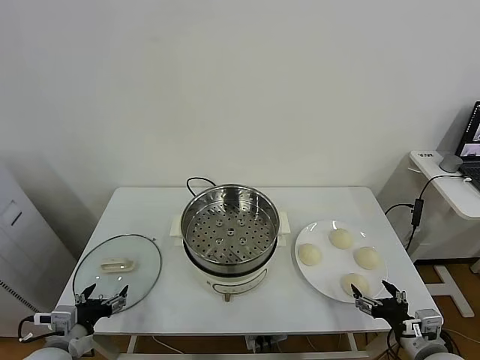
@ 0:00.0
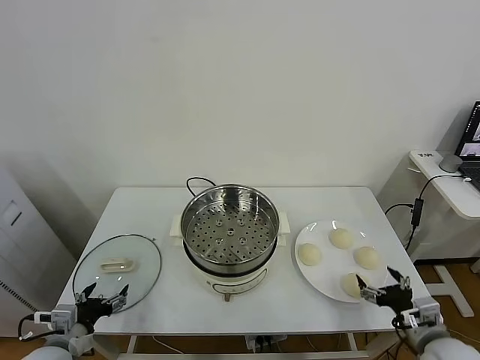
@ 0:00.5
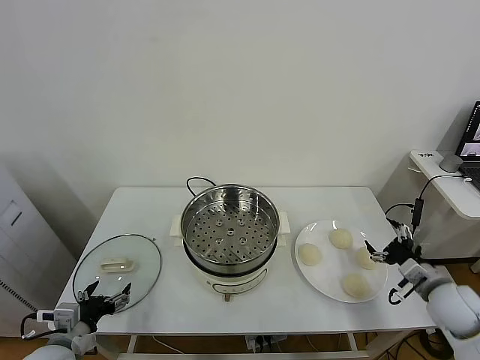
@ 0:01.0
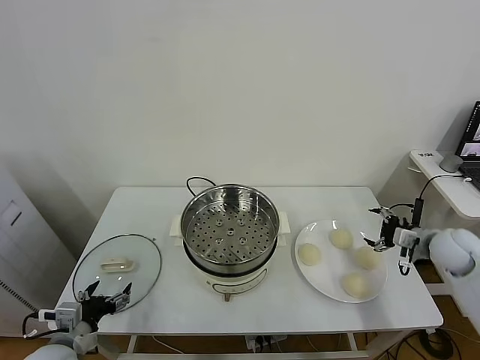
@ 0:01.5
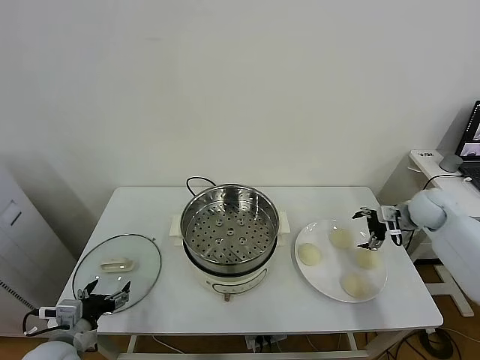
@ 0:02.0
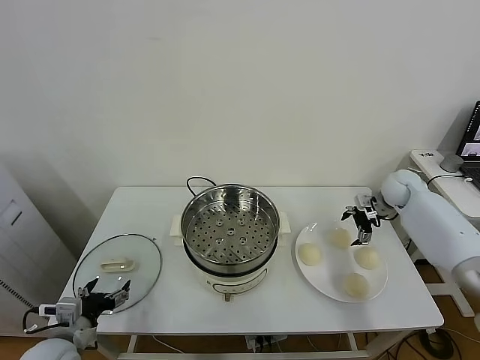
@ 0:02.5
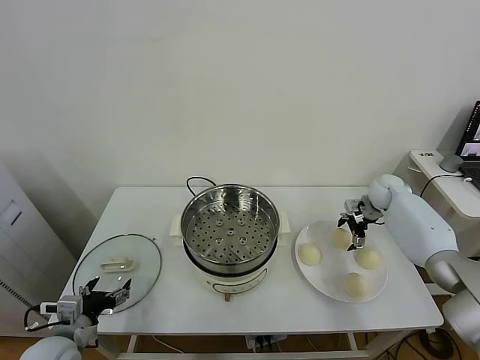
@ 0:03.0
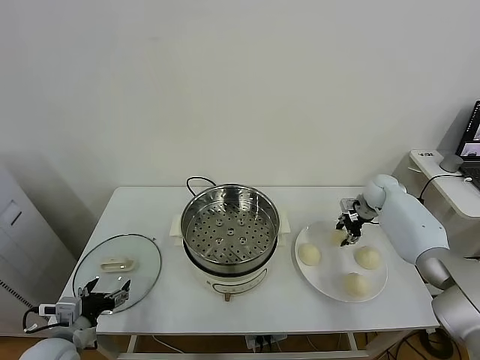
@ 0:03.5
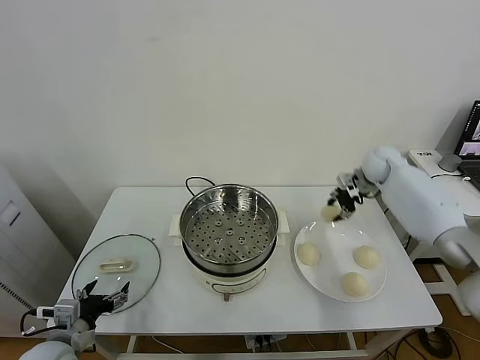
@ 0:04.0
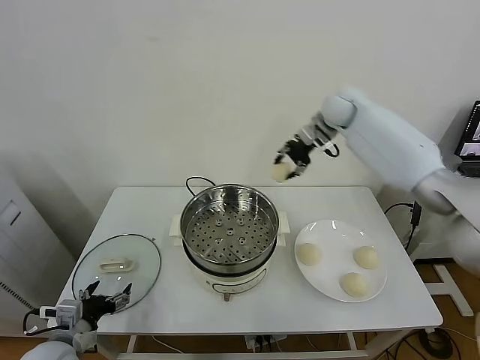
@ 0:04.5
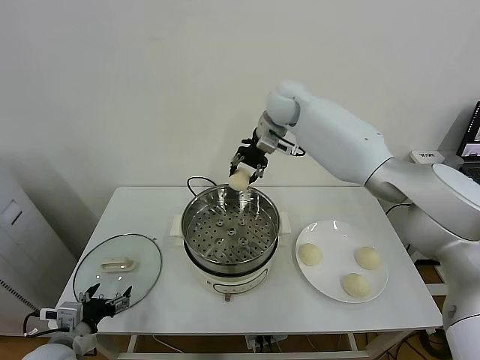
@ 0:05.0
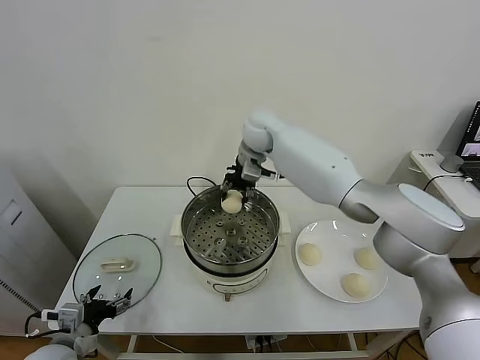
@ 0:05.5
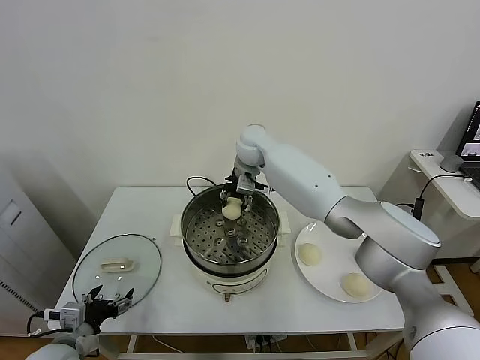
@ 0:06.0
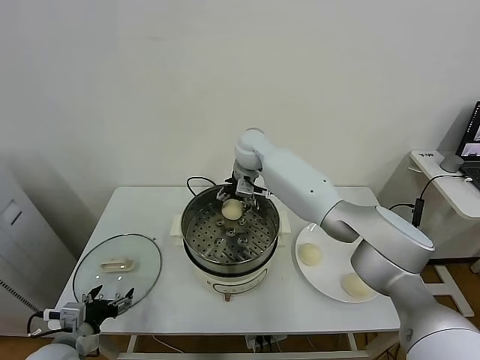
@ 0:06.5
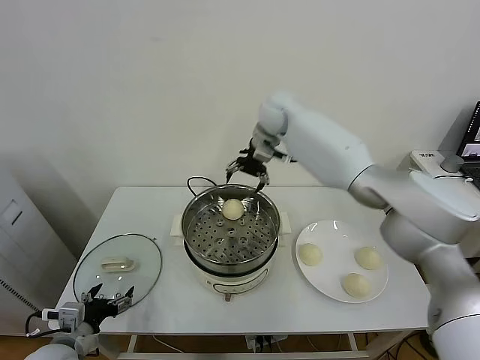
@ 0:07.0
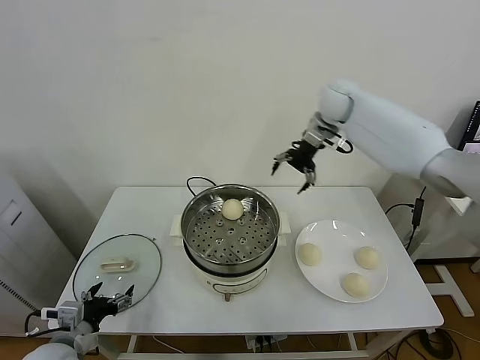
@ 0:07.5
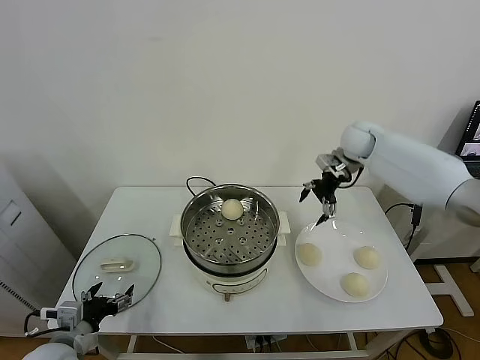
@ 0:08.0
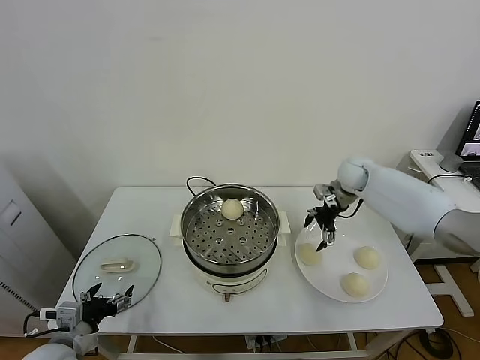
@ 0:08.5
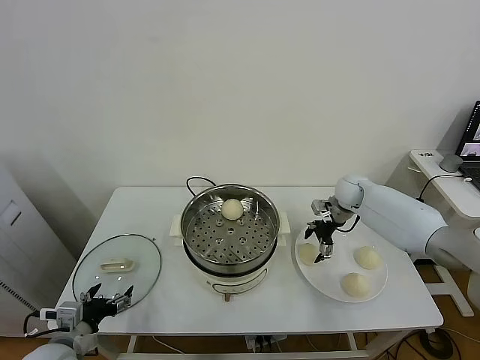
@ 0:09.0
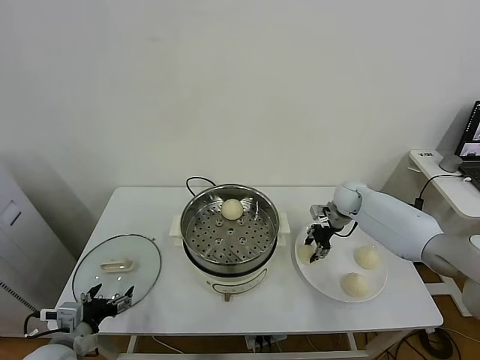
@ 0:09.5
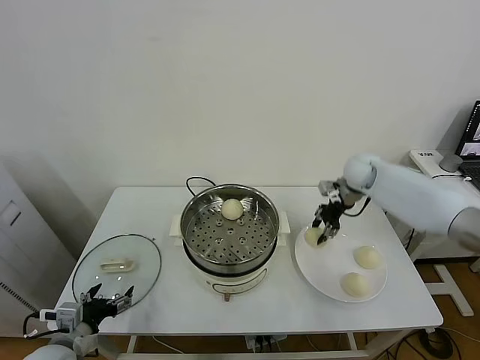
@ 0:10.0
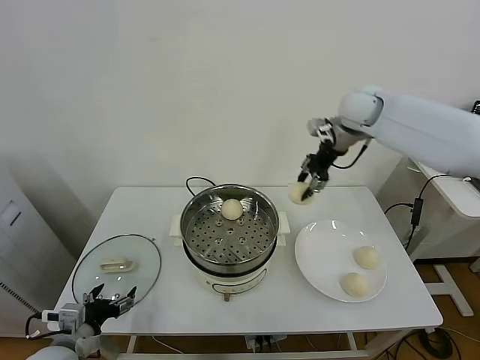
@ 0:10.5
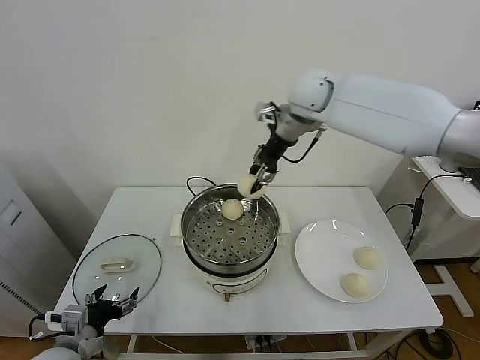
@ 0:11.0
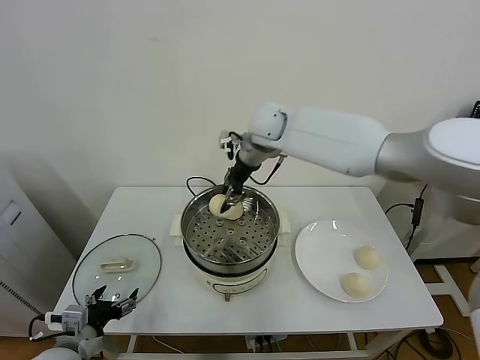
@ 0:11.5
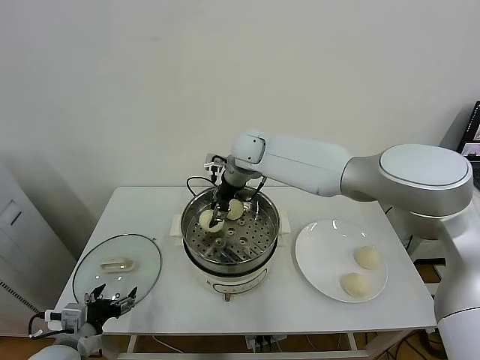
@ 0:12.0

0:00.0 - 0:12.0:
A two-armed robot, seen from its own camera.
Task of the whole recording: take steamed baozi put them in steamer.
Step, 0:00.0 - 0:03.0: Grasp the baozi in the plate with right gripper.
Step, 0:03.5 - 0:06.5: Place the baozi on the steamer with right gripper.
Step, 0:07.0 - 0:09.5: Grasp the baozi in the plate with right gripper.
0:02.0 - 0:04.0: The right gripper heads forward, to the left and upward, covering some 15 cm, and closes its fingers.
0:04.0 - 0:06.0: The right gripper goes roughly 30 cm to the left.
0:06.0 - 0:08.0: The right gripper moves to the right, some 25 cm, and opens up.
0:08.0 - 0:10.0: The right gripper goes downward and returns, roughly 15 cm each way, and closes its fingers.
0:10.0 - 0:12.0: The right gripper is displaced to the left by some 30 cm.

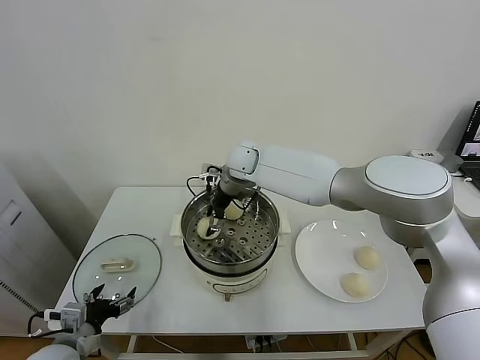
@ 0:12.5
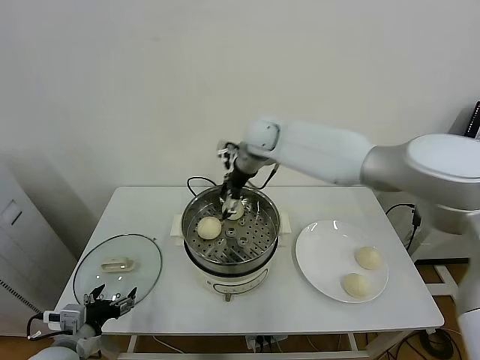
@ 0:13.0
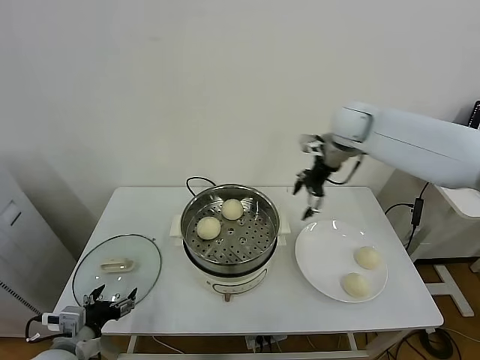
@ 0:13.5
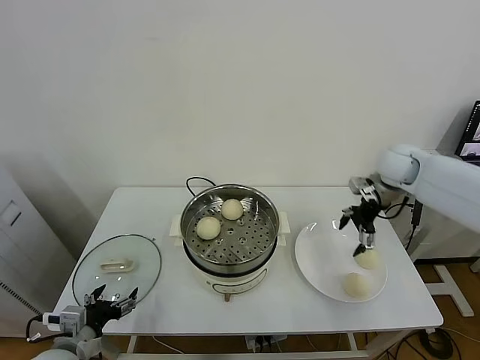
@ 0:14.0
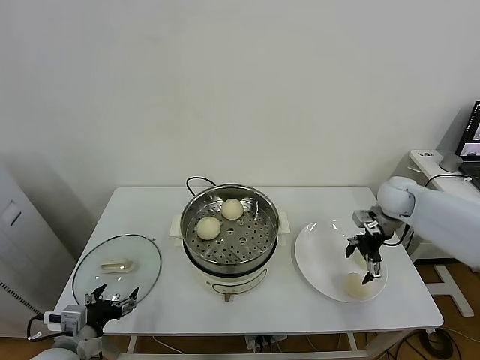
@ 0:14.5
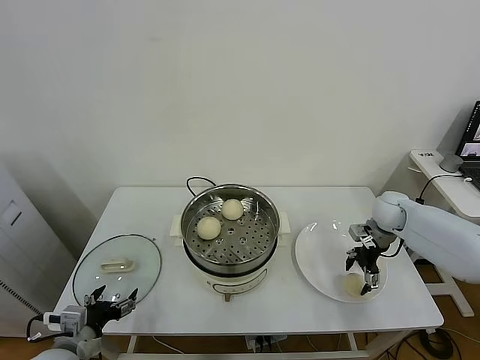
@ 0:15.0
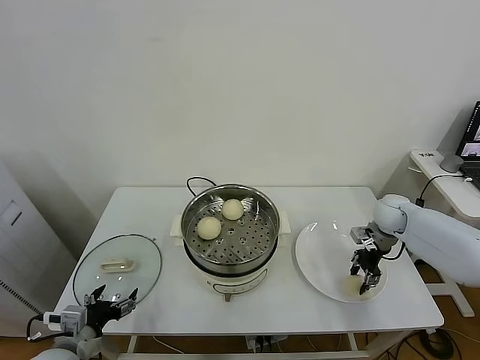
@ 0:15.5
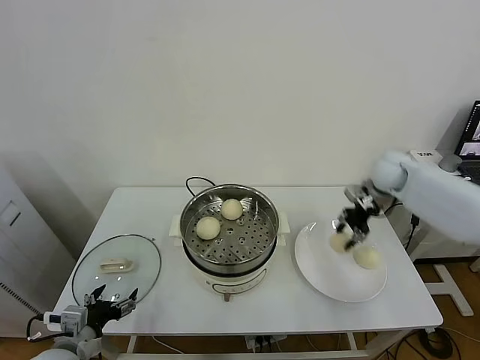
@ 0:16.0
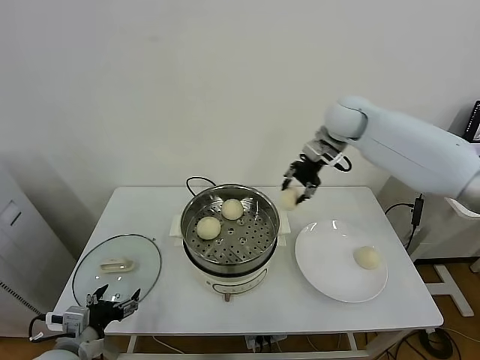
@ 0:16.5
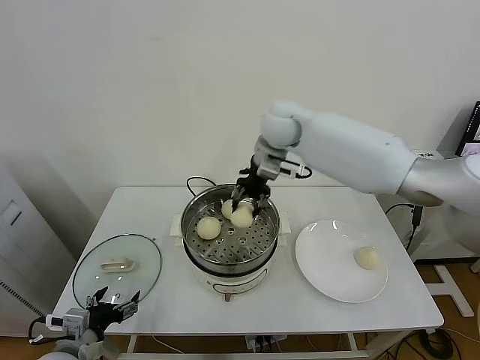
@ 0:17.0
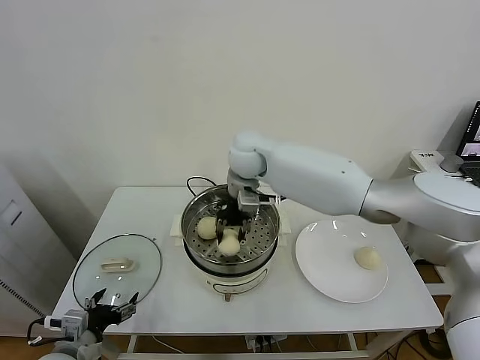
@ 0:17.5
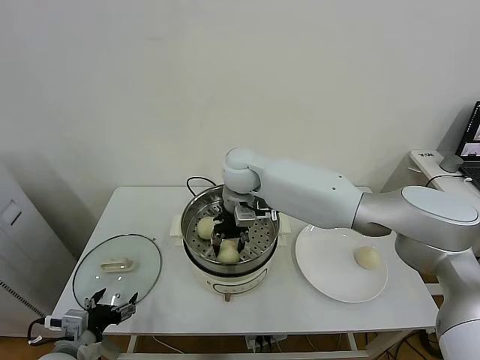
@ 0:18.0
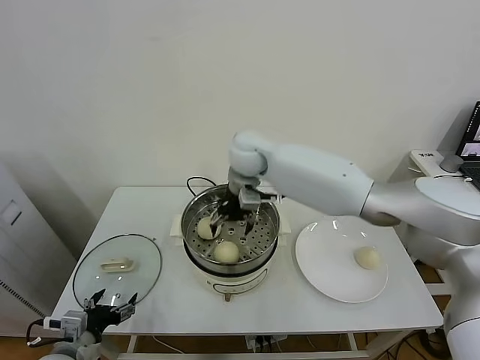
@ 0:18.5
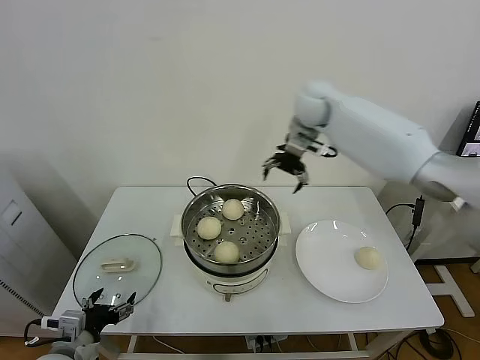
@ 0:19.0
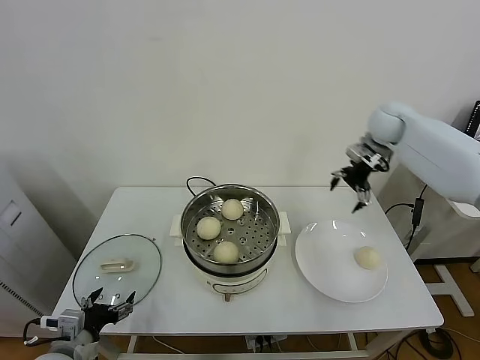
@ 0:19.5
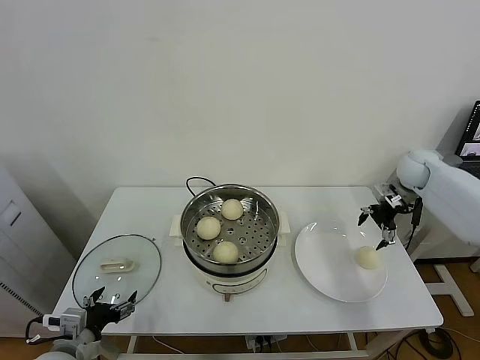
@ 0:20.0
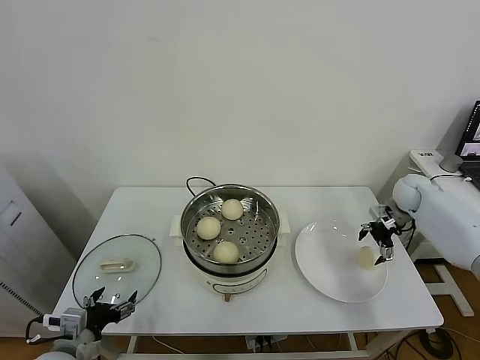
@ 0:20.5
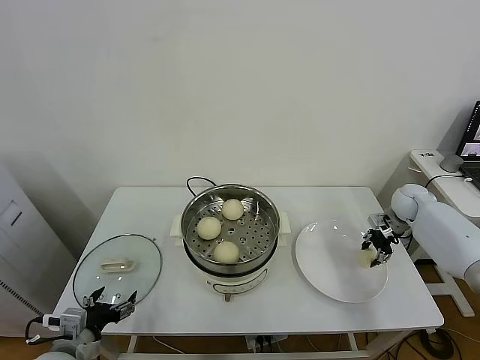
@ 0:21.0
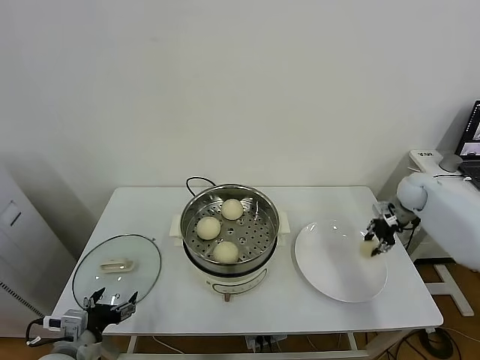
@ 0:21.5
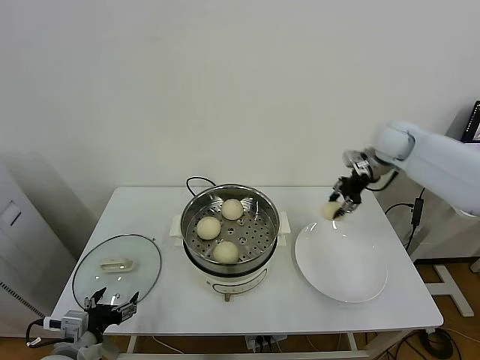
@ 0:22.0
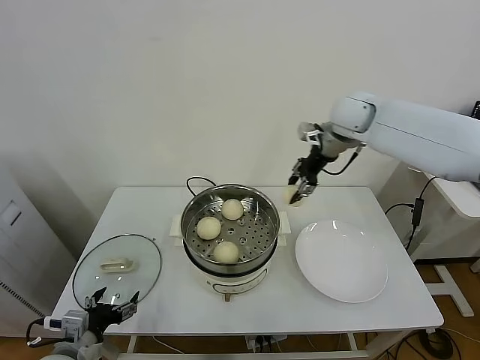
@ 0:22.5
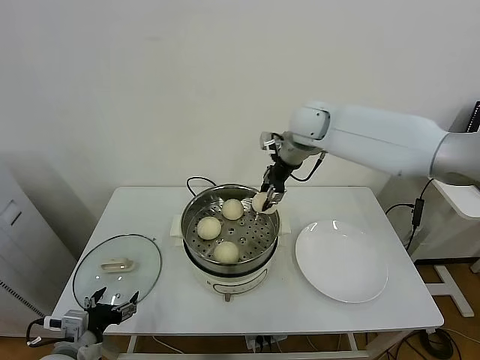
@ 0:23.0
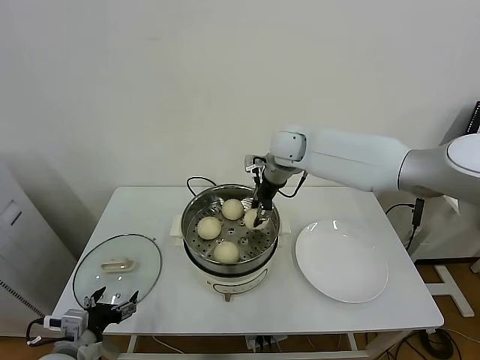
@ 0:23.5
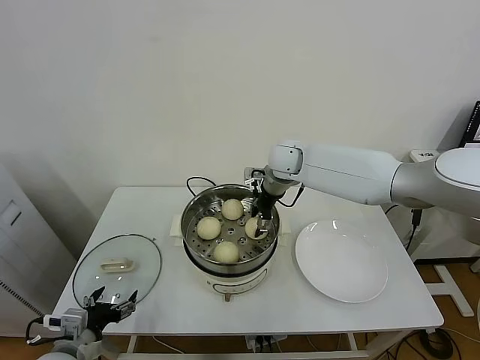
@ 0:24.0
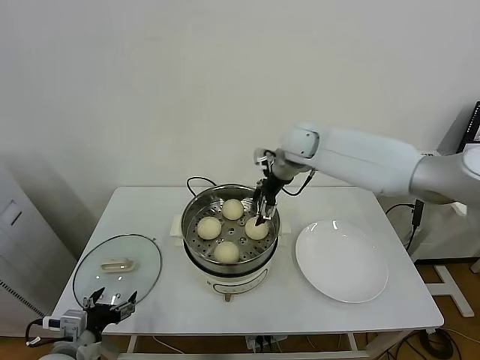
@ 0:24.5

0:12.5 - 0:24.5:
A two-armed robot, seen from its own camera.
Task of the whole recording: take steamed baozi put them in steamer.
Step, 0:13.0 - 0:15.5: Grasp the baozi in the plate with right gripper.
Step, 0:16.0 - 0:18.0: Place the baozi on the steamer with right gripper.
Step, 0:19.0 - 0:21.0: Grasp the baozi in the plate with right gripper.
Step, 0:21.5 - 0:24.0: Place the baozi on the steamer with right gripper.
0:12.5 - 0:14.5: The right gripper moves to the right, some 40 cm.
0:14.5 - 0:16.5: The right gripper goes approximately 25 cm upward and to the left, and closes up.
0:16.5 - 0:18.5: The right gripper heads to the left, covering about 20 cm, and opens.
0:18.5 - 0:20.5: The right gripper goes approximately 40 cm to the right.
0:20.5 - 0:22.5: The right gripper shifts approximately 30 cm to the left and upward, and closes.
0:22.5 - 0:24.5: The right gripper goes roughly 10 cm to the left and downward, and opens.

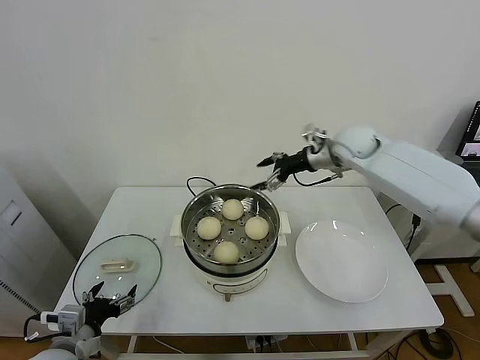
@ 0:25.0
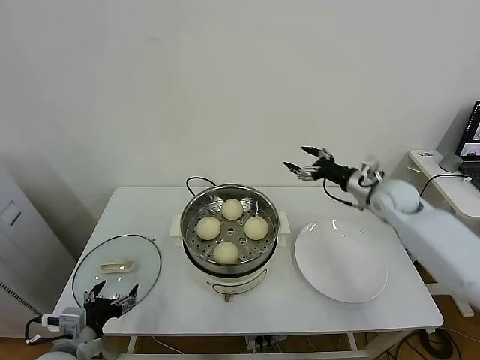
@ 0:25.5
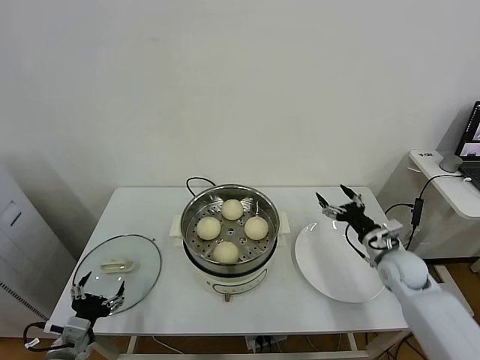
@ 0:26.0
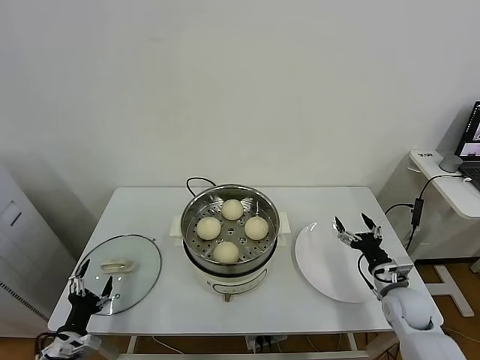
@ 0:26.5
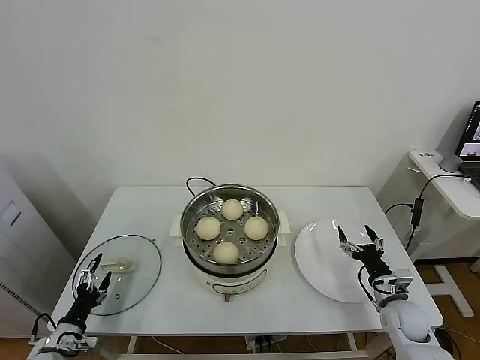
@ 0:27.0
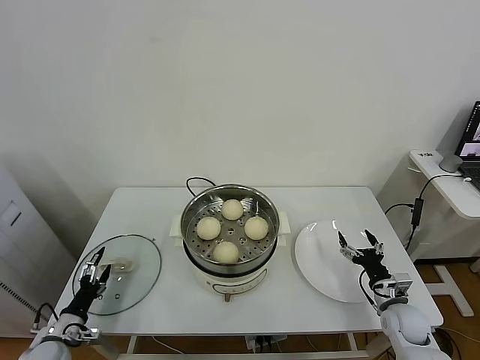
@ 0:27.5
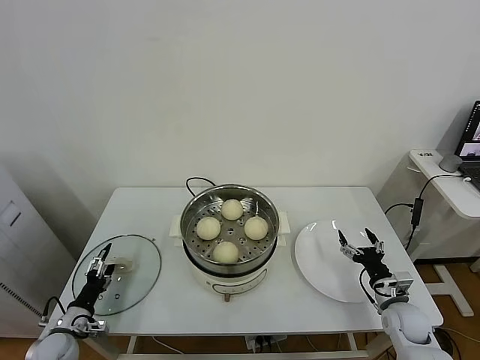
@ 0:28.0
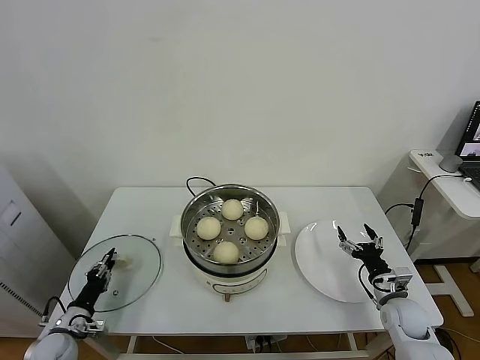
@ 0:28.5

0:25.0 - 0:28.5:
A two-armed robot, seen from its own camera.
Task of the whole recording: take steamed baozi put them in steamer.
0:25.0 - 0:27.0: The left gripper heads downward and to the left, covering roughly 15 cm; the right gripper moves downward and backward, roughly 40 cm.
0:27.0 - 0:28.5: The left gripper closes.
